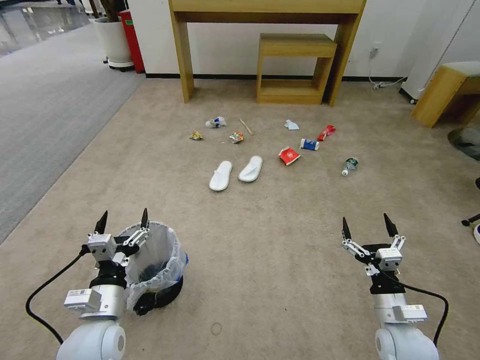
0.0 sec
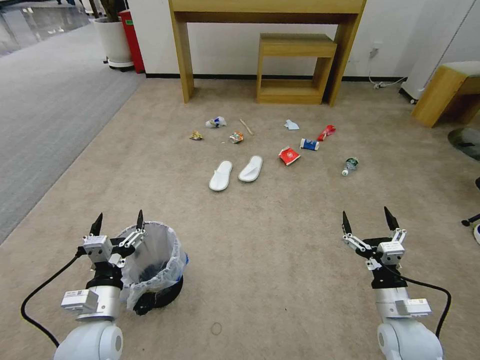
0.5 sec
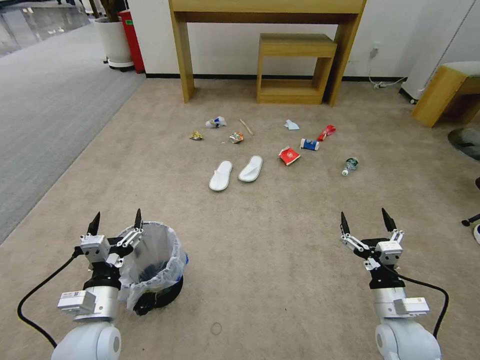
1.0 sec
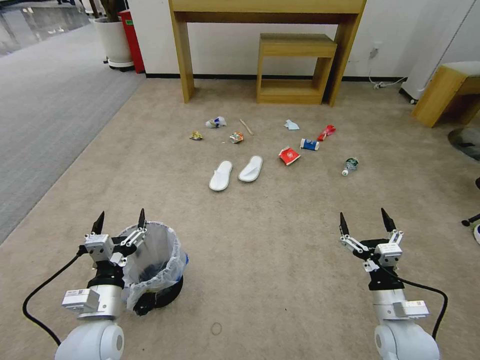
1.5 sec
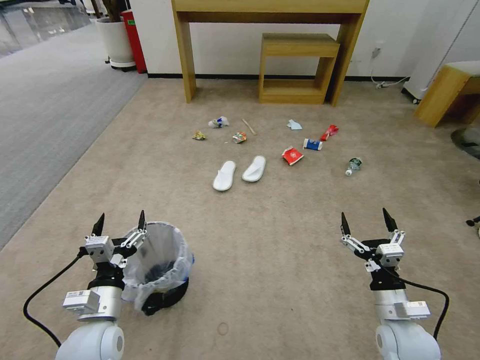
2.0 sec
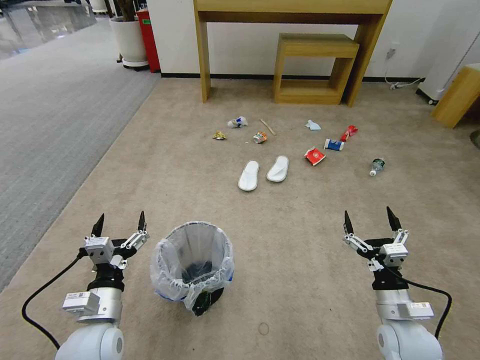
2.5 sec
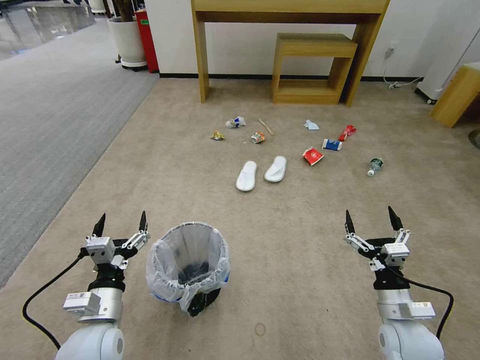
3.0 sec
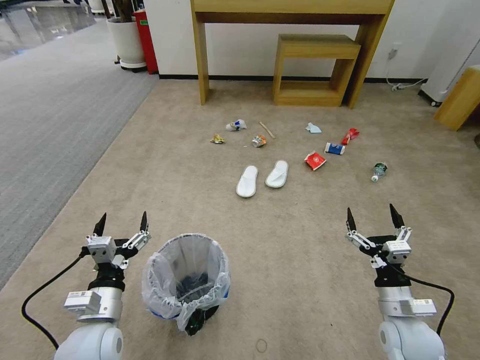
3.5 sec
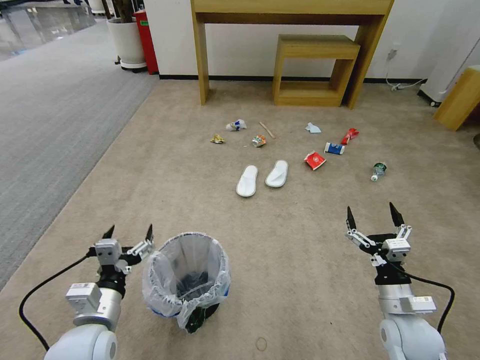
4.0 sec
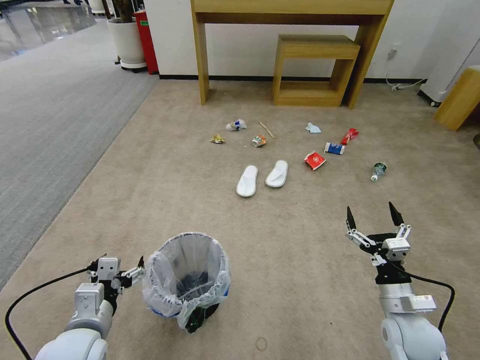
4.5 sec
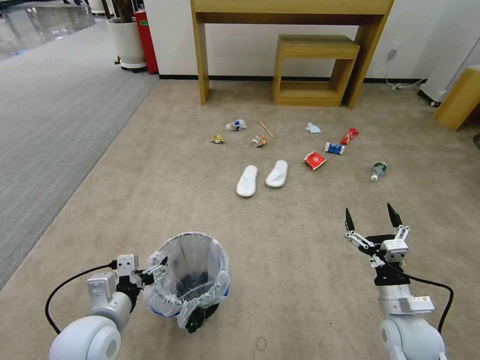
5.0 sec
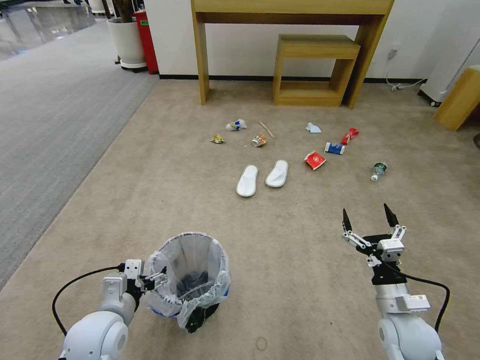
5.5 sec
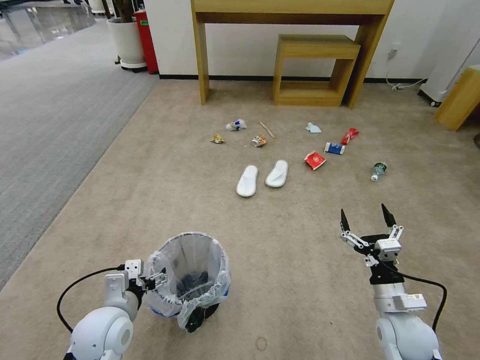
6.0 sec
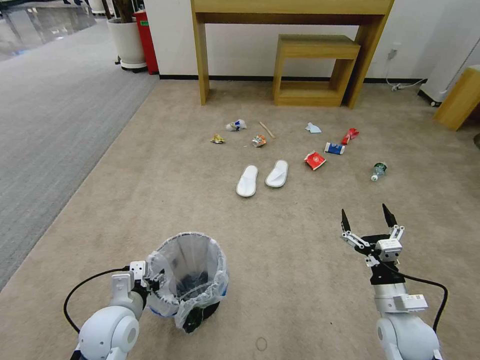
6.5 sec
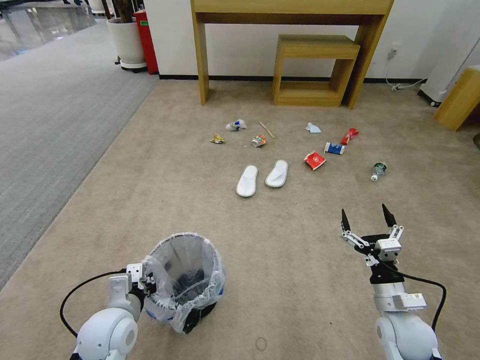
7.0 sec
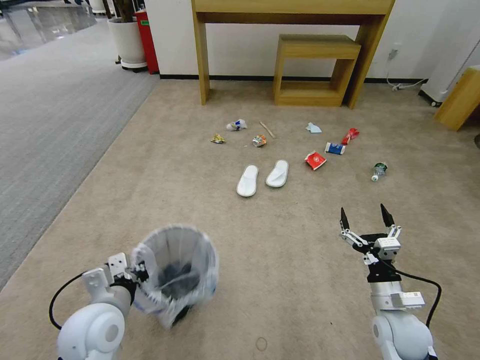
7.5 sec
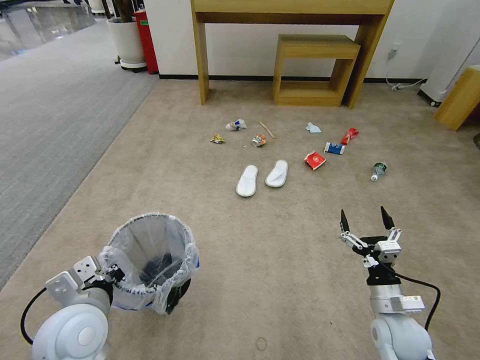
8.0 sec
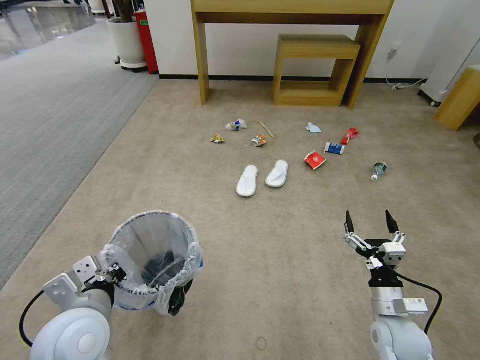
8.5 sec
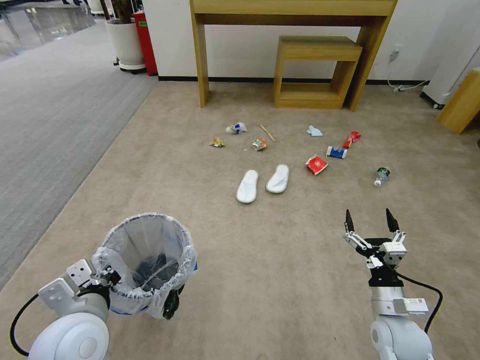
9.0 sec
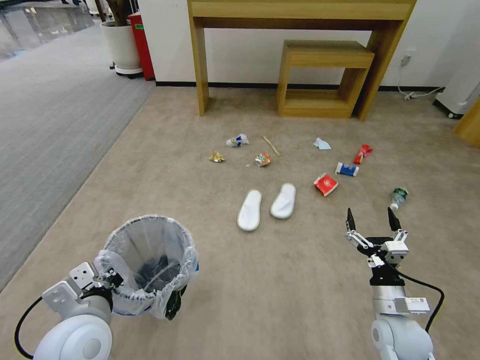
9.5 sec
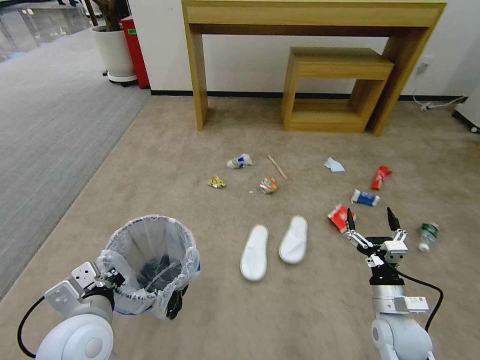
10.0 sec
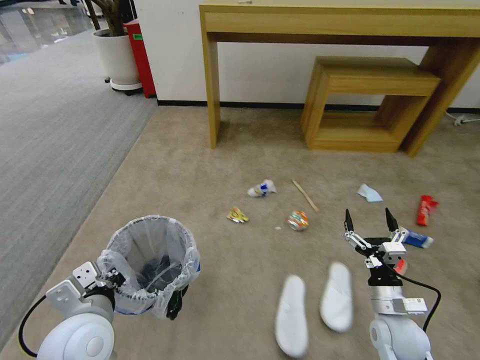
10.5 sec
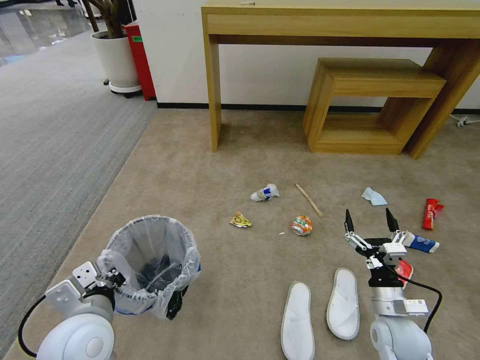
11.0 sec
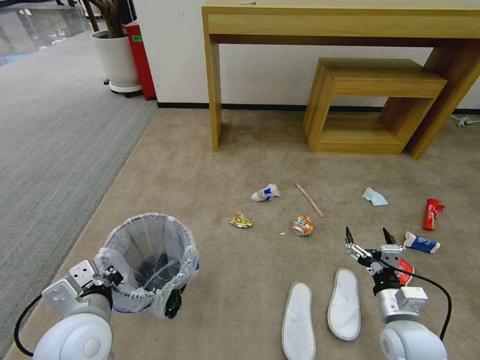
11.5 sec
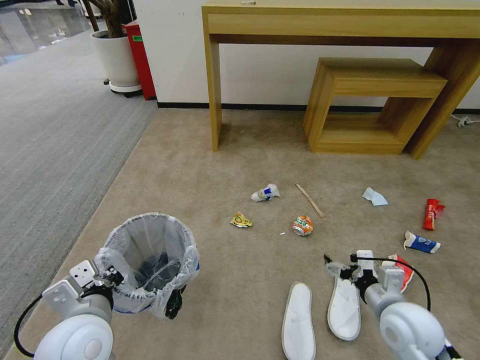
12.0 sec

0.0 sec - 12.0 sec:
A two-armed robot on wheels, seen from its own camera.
Task of the whole recording: Pick up the trash bin and place the garbage on the floor into it.
6.0 sec - 8.0 sec: The left gripper moves upward, roughly 10 cm, and closes up.
10.0 sec - 12.0 sec: The right gripper travels upward by about 5 cm.

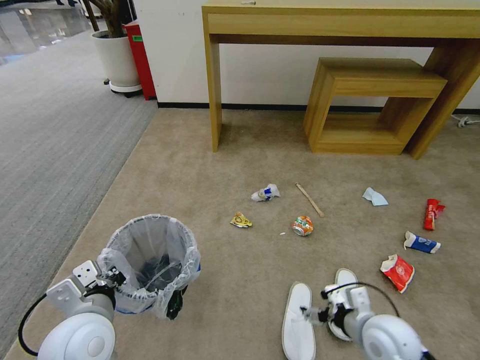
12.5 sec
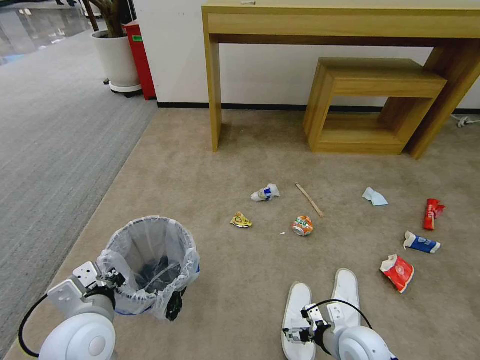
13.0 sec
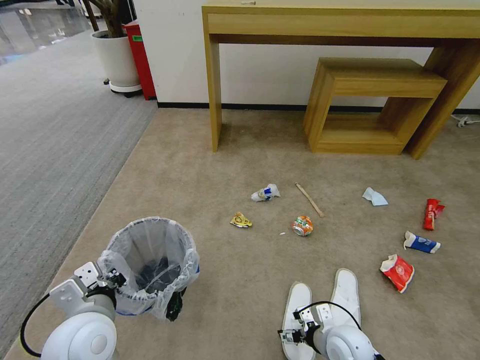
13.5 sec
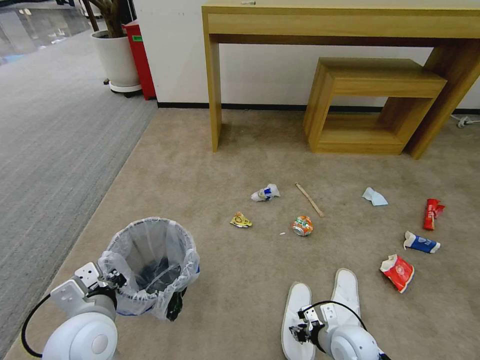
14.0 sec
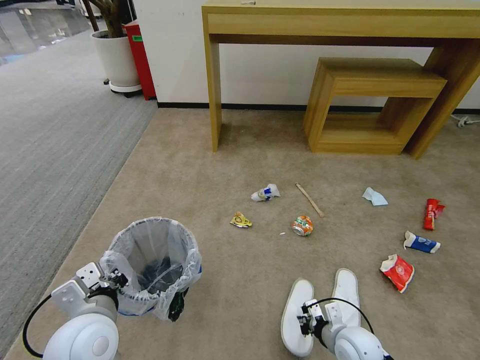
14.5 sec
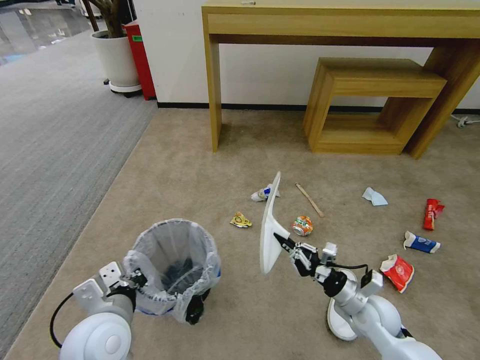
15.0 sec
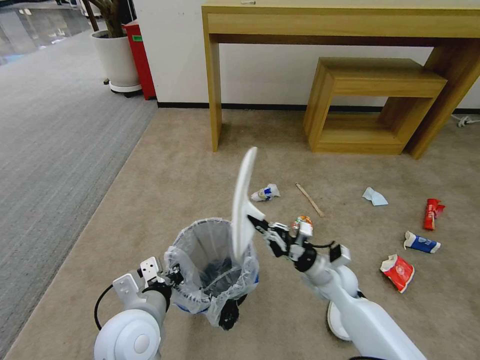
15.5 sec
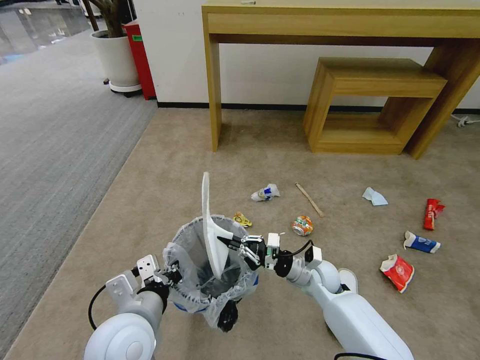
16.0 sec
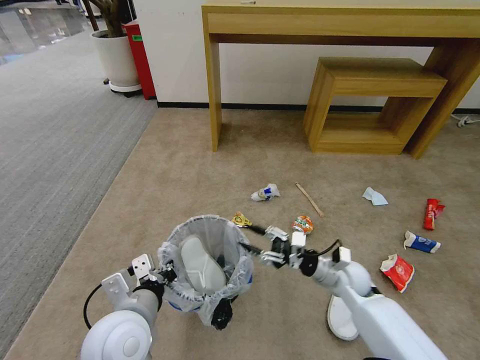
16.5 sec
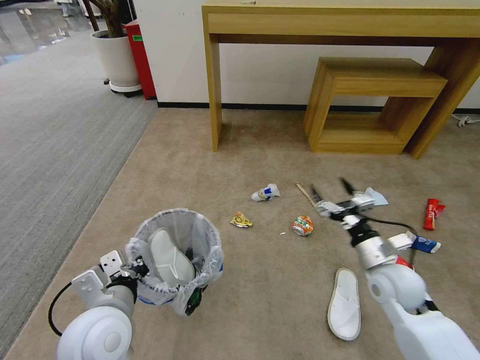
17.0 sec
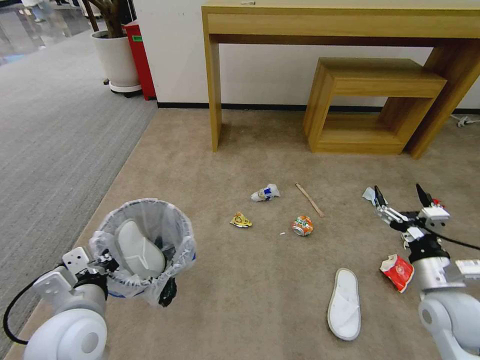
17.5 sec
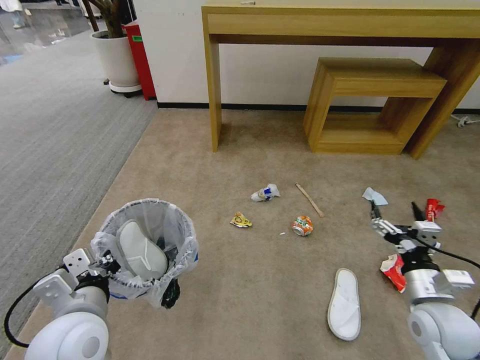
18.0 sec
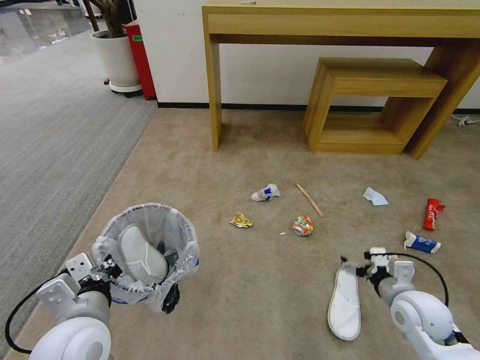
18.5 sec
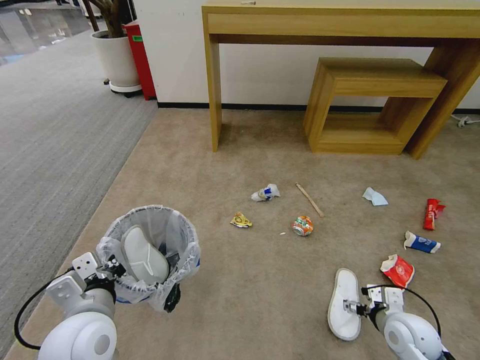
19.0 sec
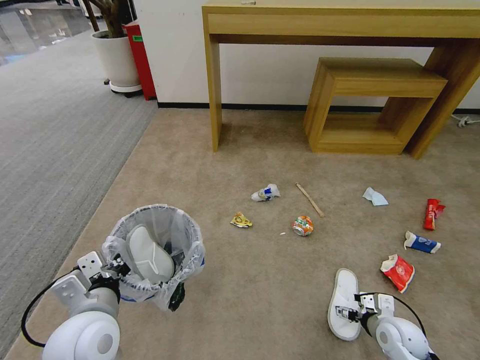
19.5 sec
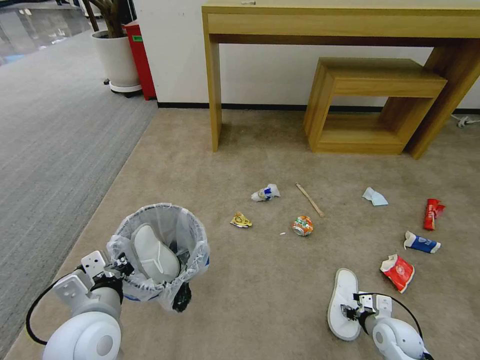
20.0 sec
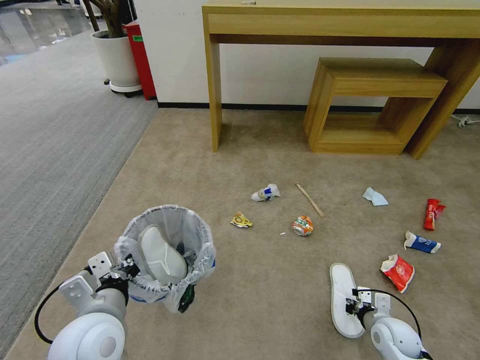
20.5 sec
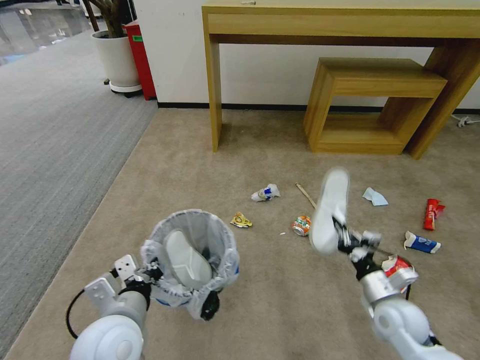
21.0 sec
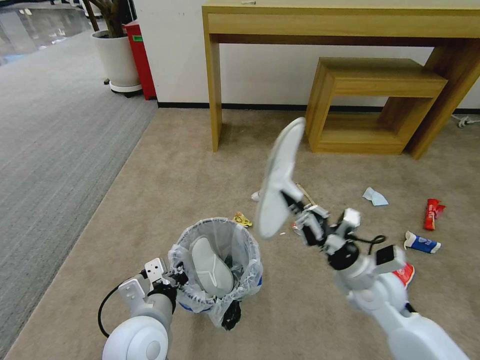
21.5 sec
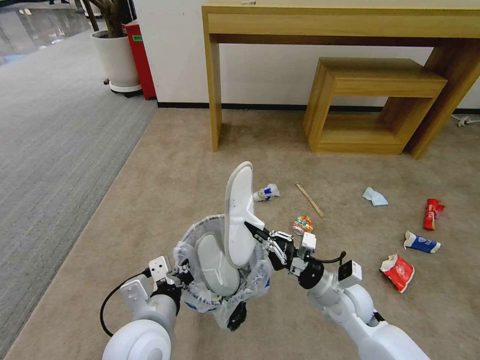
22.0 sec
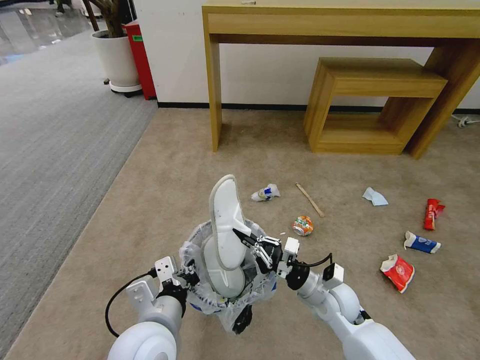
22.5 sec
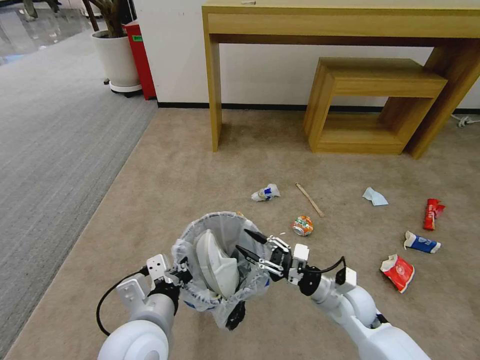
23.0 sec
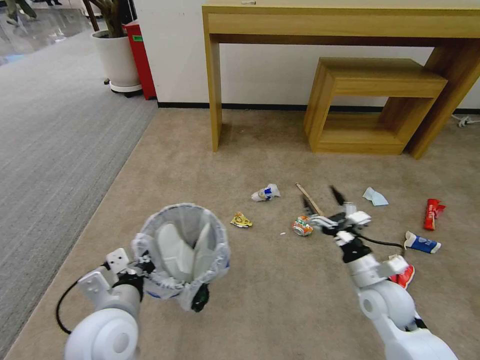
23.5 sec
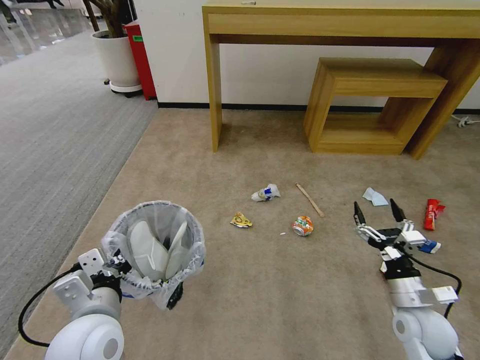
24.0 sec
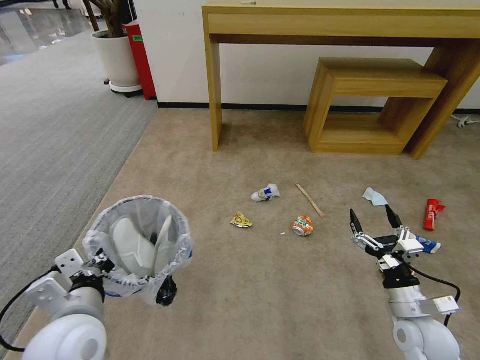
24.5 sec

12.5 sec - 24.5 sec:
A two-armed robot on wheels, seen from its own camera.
Task of the whole recording: Pick up the trash bin and place the garbage on the floor into it.
12.5 sec - 14.5 sec: The right gripper heads downward, covering approximately 10 cm, and closes up.
14.5 sec - 16.5 sec: The left gripper shifts some 5 cm to the right; the right gripper moves forward and upward, some 15 cm, and opens up.
16.5 sec - 18.5 sec: The left gripper is displaced to the left by about 5 cm, while the right gripper heads to the right, backward and upward, covering roughly 15 cm, and opens up.
18.5 sec - 20.5 sec: The right gripper goes about 15 cm downward, and closes up.
20.5 sec - 22.5 sec: The right gripper goes some 20 cm to the left and upward; the left gripper heads to the right, covering about 10 cm.
22.5 sec - 24.5 sec: The right gripper shifts roughly 15 cm to the right and backward, and opens its fingers; the left gripper is displaced to the left by approximately 10 cm.

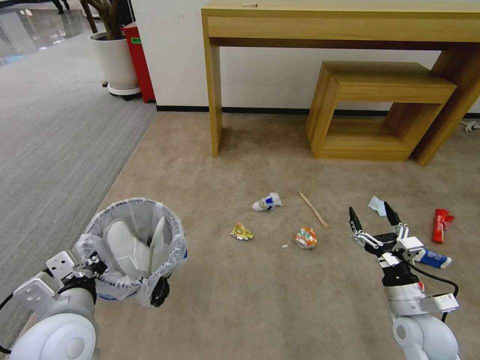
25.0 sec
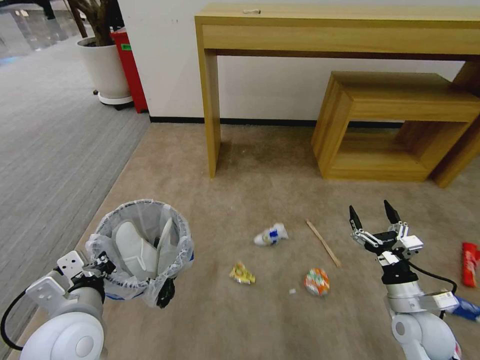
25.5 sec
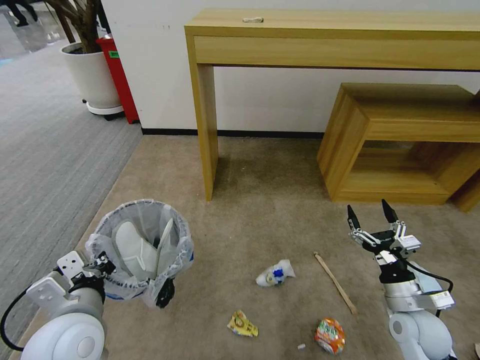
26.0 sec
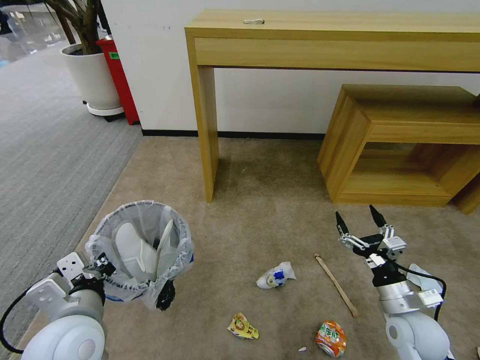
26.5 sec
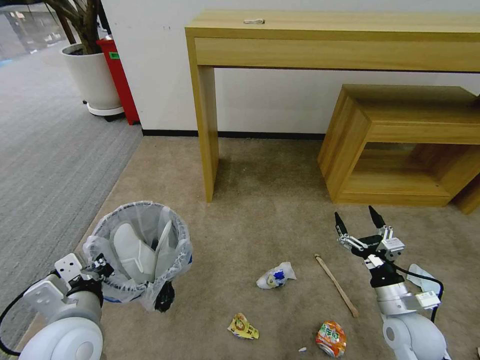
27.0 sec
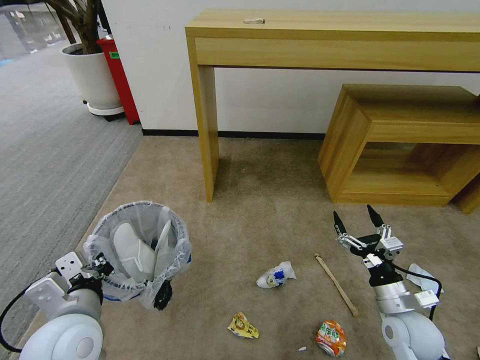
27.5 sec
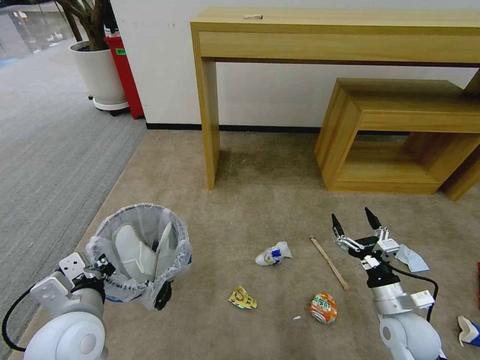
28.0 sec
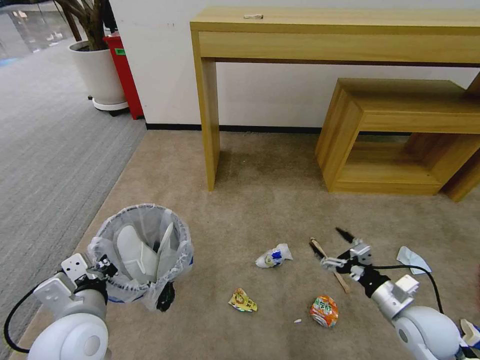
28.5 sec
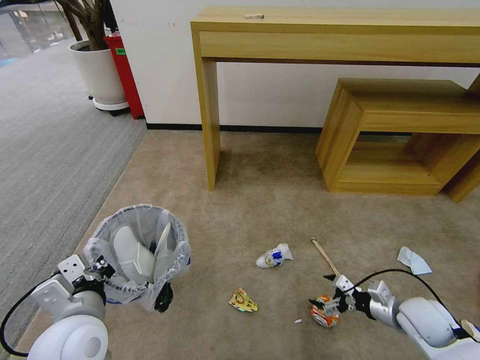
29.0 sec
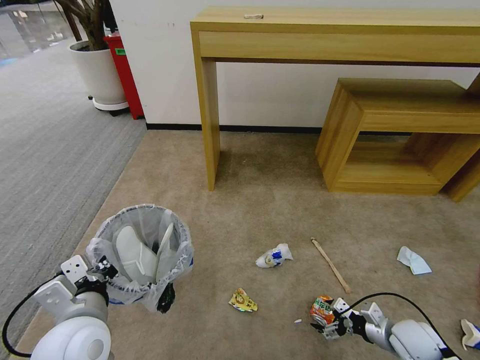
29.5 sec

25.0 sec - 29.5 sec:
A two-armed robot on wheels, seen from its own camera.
Task of the whole recording: Pick up the trash bin and place the garbage on the floor into it.
27.0 sec - 29.5 sec: The right gripper heads downward and to the right, covering some 10 cm.
